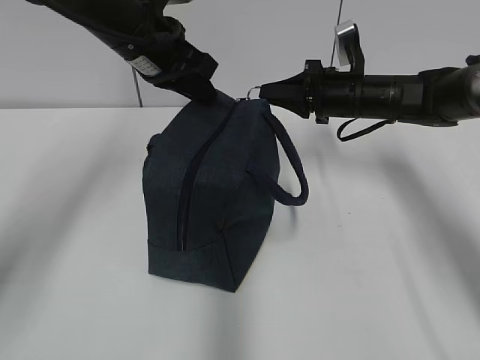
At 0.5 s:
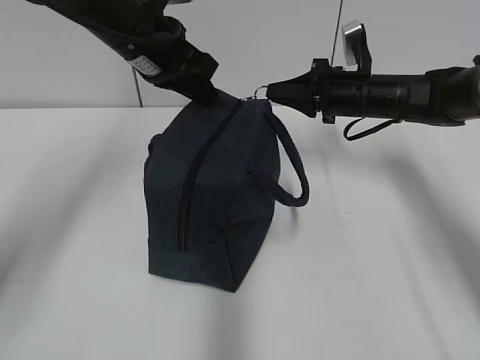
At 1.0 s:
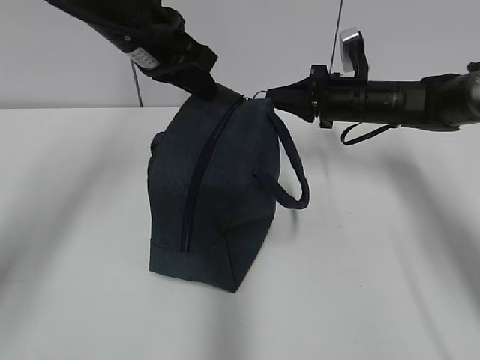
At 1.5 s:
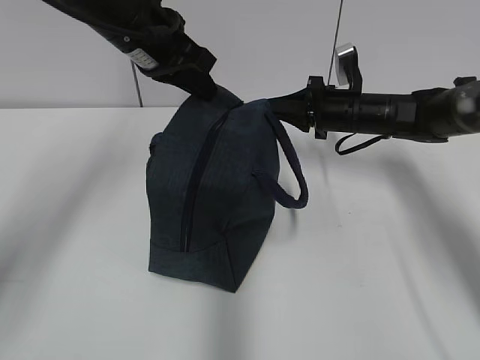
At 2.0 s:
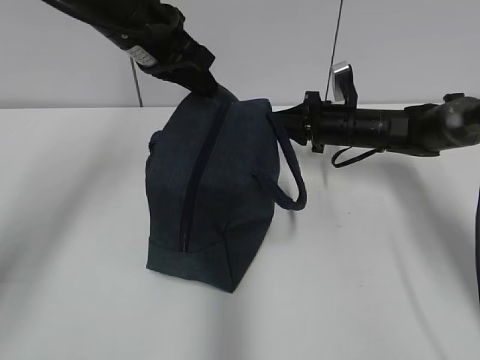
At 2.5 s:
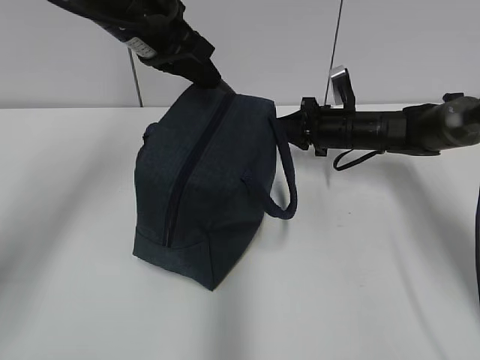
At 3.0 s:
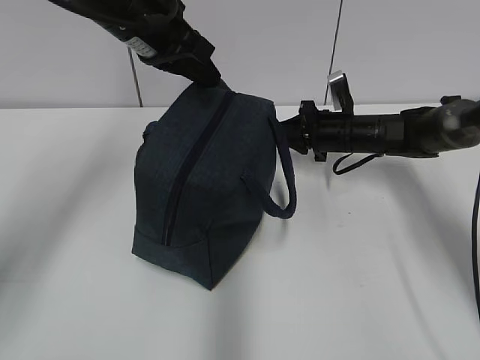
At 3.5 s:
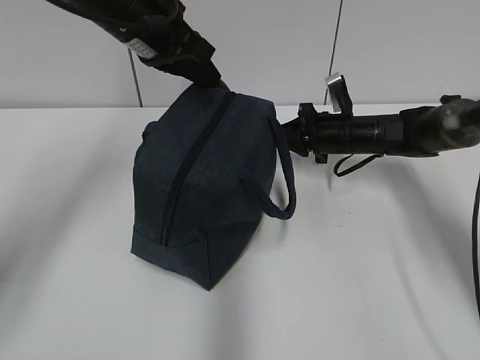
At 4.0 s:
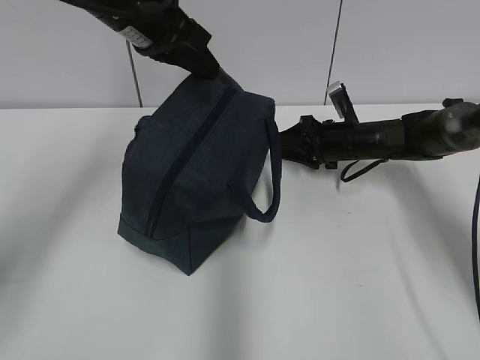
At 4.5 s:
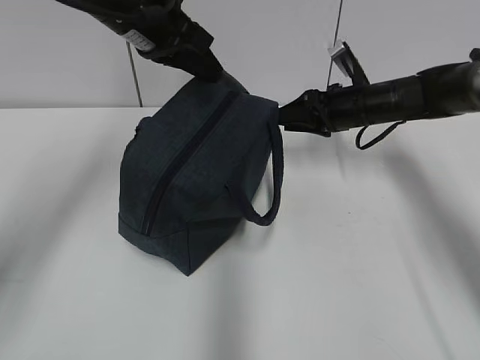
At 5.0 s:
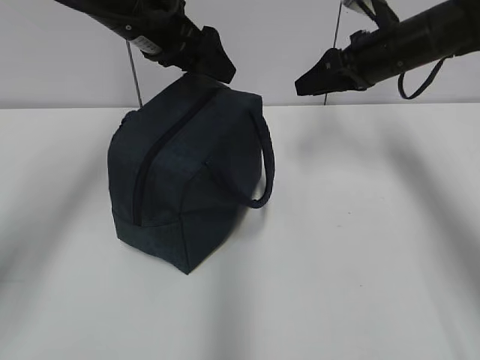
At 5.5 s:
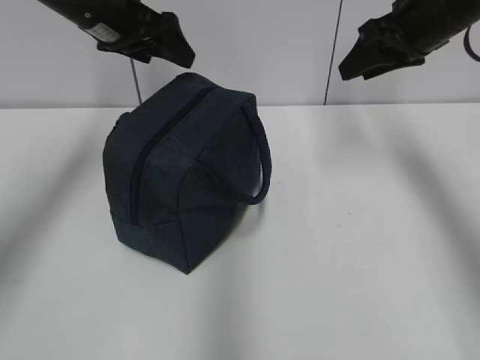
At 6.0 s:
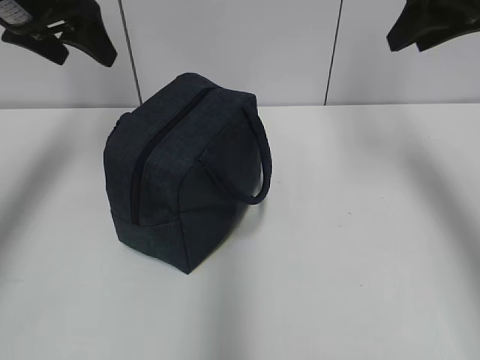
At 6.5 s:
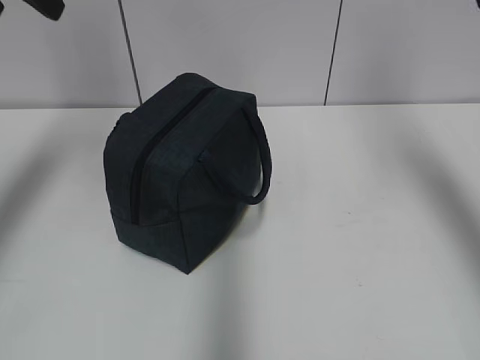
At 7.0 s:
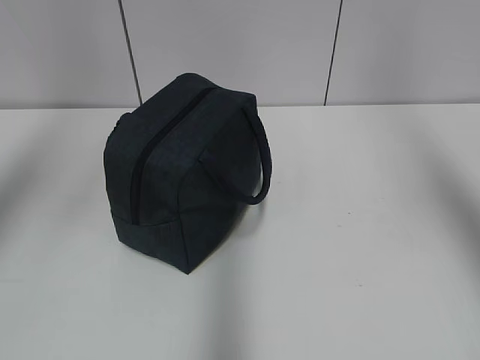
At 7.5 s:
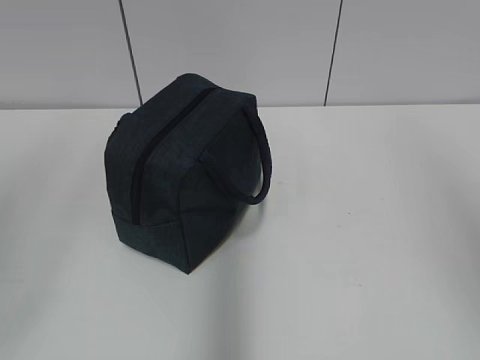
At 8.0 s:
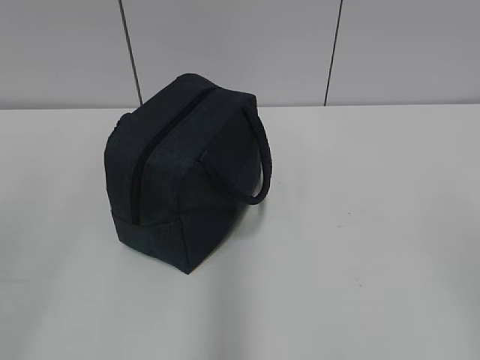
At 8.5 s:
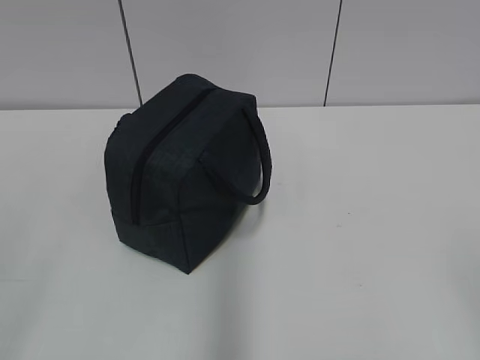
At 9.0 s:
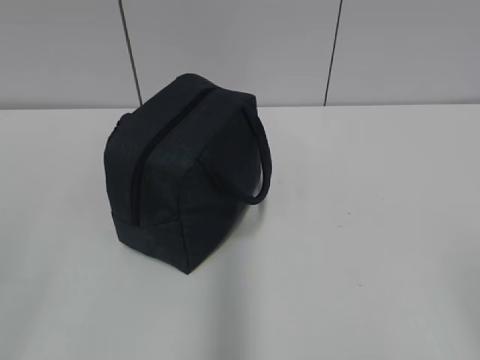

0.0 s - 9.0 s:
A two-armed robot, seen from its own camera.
0.0 s - 2.0 s: The right gripper travels downward by some 5 cm.
2.0 s - 4.5 s: The right gripper opens up.
4.5 s - 7.0 s: The left gripper heads backward, upward and to the left, covering approximately 30 cm, and opens; the right gripper goes roughly 40 cm upward and backward.
7.0 s - 9.0 s: The right gripper moves downward and backward, roughly 30 cm, while the left gripper moves backward and downward, approximately 30 cm.

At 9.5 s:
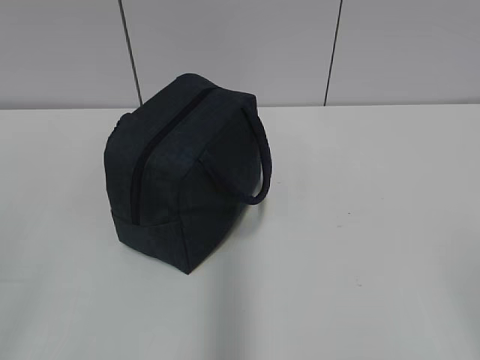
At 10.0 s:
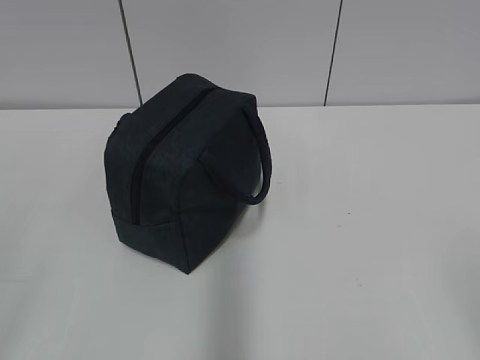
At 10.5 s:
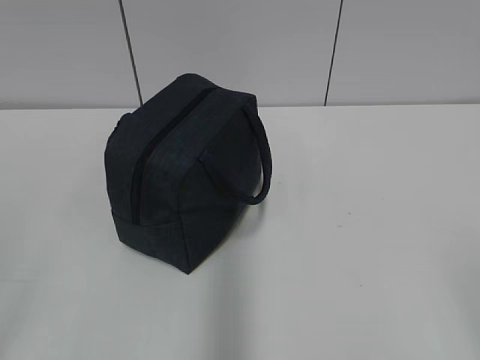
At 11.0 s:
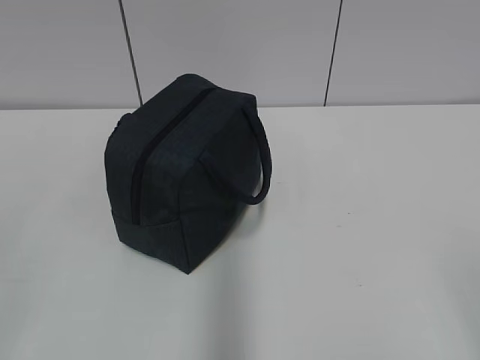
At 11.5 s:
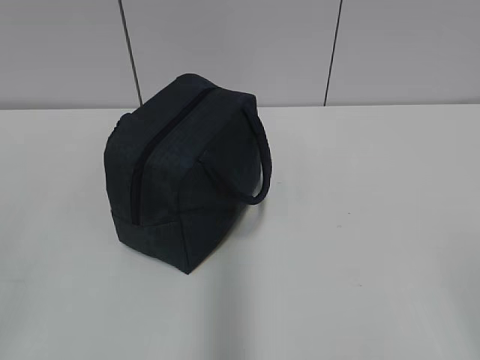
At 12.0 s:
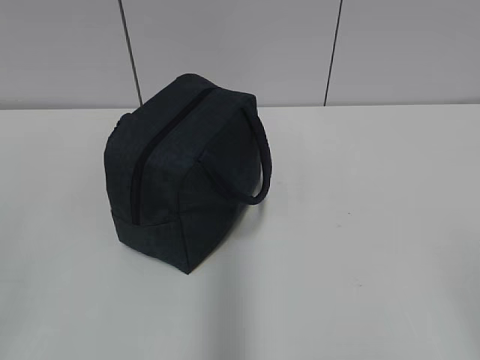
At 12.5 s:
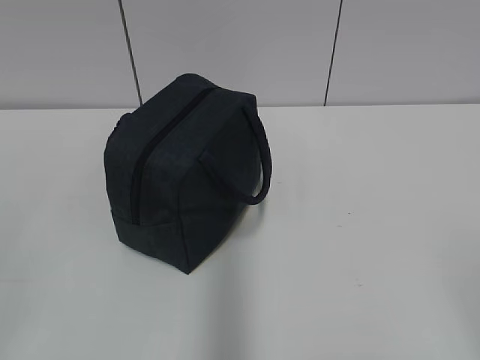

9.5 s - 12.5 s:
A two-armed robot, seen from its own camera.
11.0 s - 12.5 s: Both grippers stay put.
